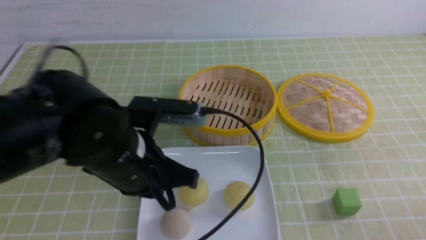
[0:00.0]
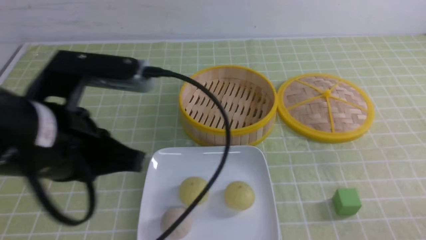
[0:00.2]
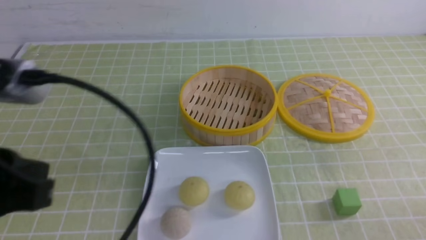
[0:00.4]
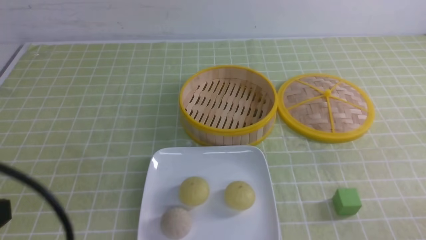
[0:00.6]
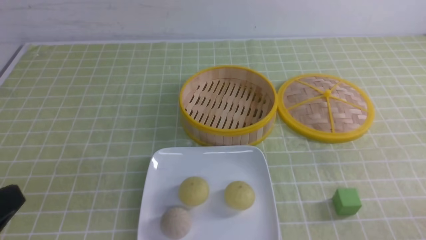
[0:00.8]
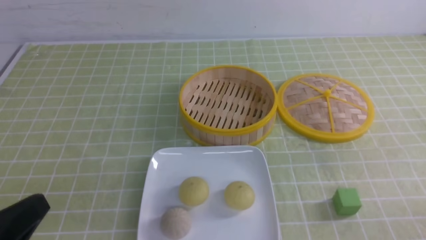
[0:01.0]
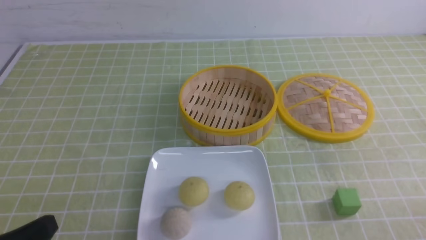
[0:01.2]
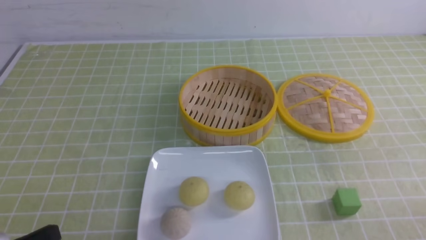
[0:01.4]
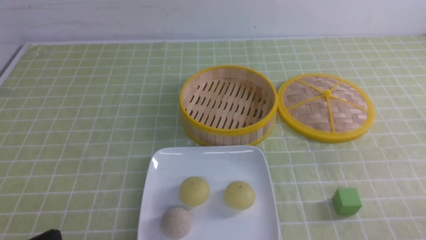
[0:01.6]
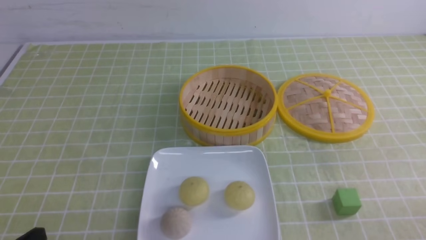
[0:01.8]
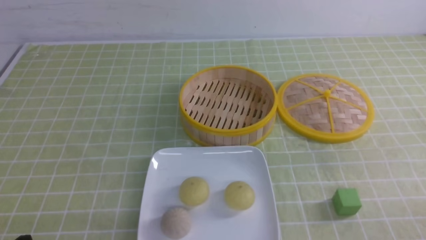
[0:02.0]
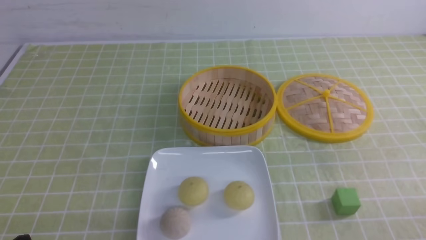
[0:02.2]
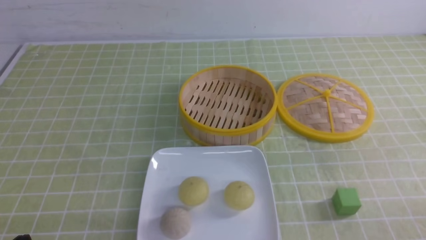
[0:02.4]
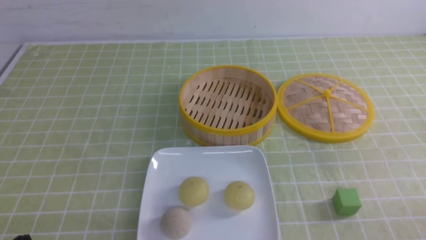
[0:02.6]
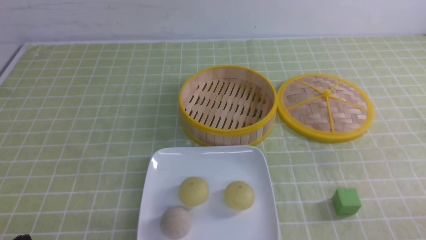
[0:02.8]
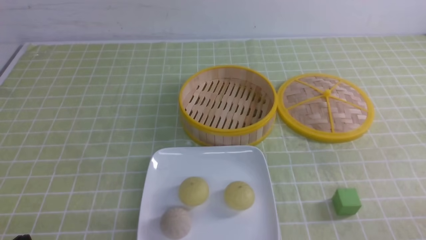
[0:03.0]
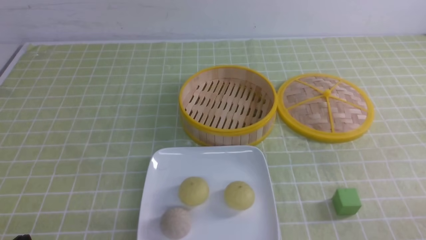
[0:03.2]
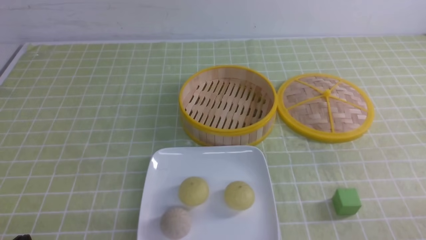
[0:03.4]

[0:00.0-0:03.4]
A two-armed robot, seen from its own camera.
0:00.0 to 0:01.6: The left gripper goes some 20 cm backward, to the left and downward.
